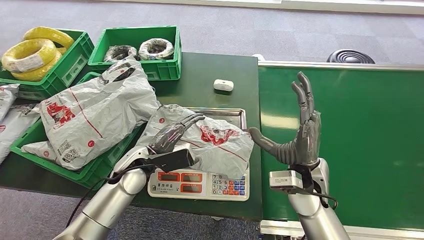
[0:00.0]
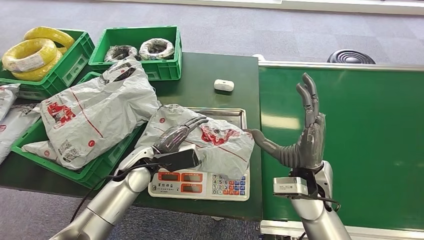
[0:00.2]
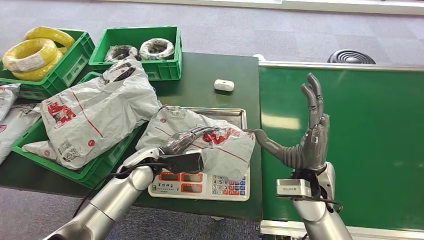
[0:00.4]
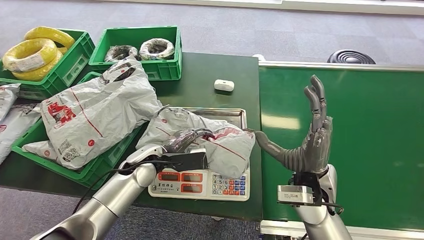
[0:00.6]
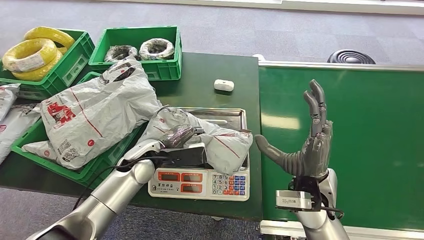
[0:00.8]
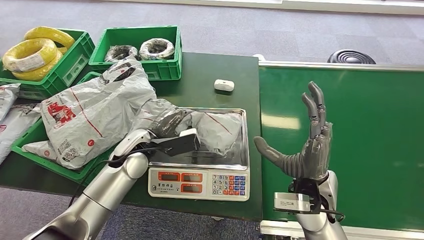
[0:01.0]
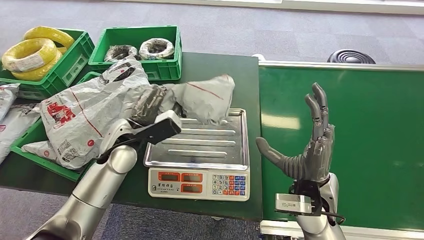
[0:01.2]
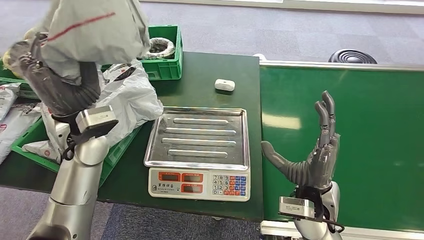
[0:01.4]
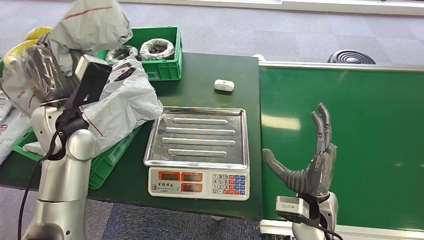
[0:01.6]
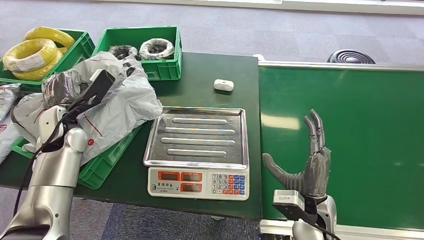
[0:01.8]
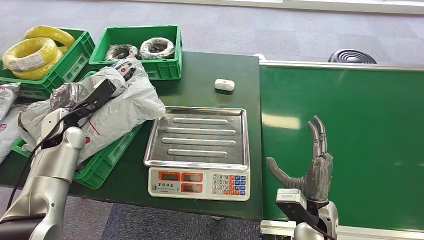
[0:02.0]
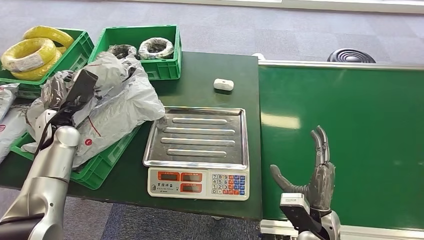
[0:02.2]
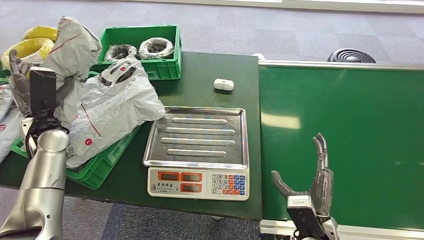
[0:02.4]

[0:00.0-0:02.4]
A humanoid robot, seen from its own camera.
Step, 0:00.0 to 0:01.4: Pick up the package from the inbound machine.
Step, 0:01.6 to 0:02.4: Place the package into the parcel locker.
0:00.0 to 0:01.2: The left hand goes roughly 5 cm upward.
